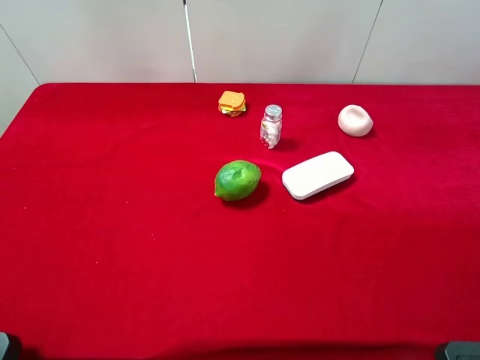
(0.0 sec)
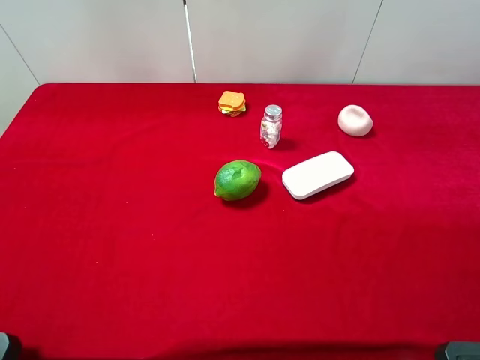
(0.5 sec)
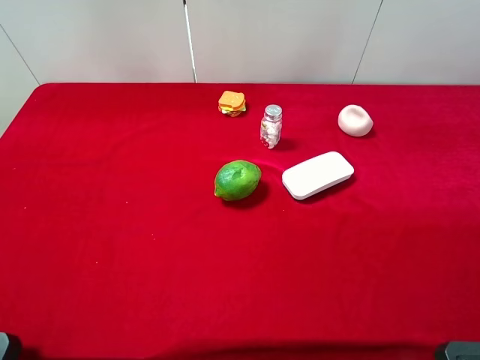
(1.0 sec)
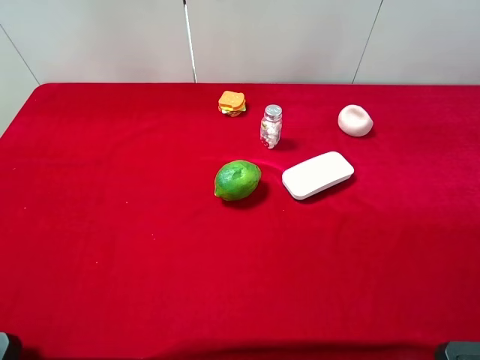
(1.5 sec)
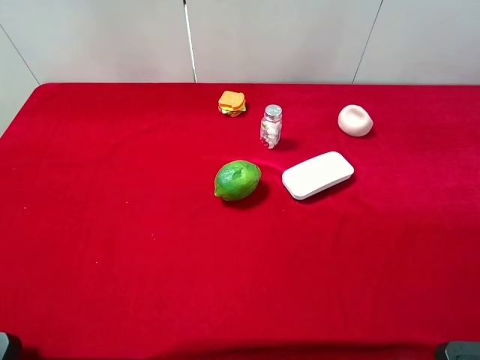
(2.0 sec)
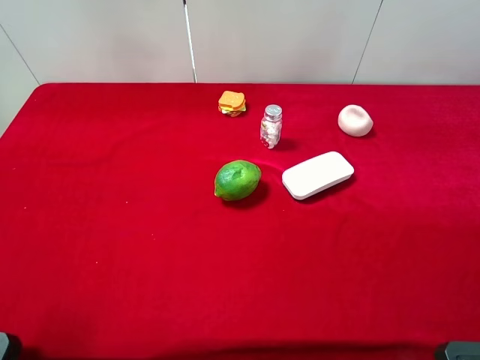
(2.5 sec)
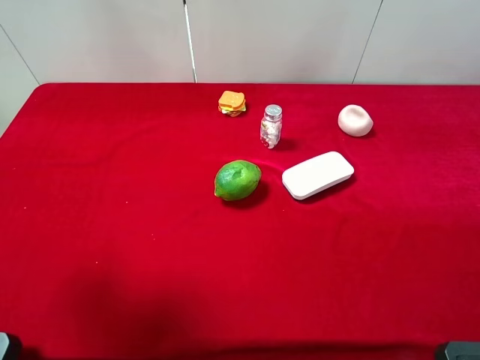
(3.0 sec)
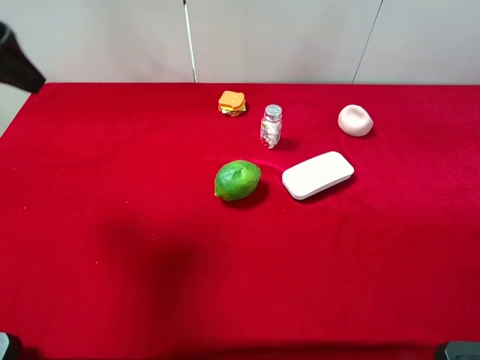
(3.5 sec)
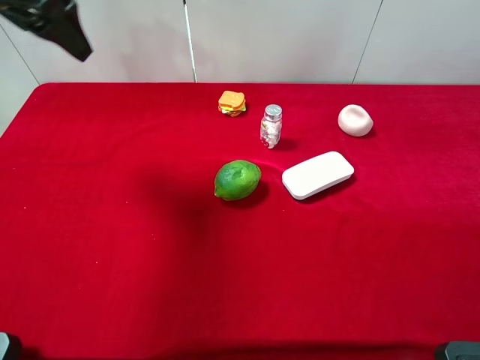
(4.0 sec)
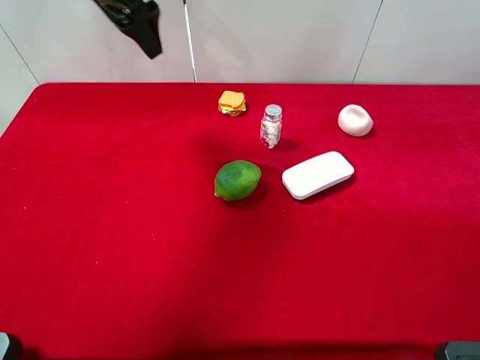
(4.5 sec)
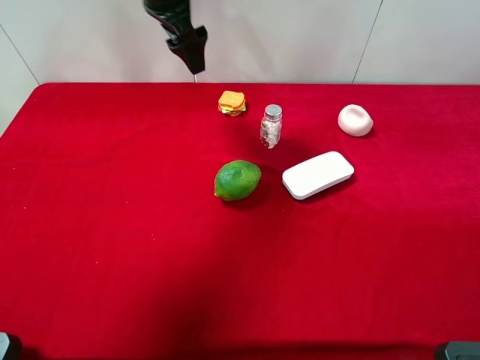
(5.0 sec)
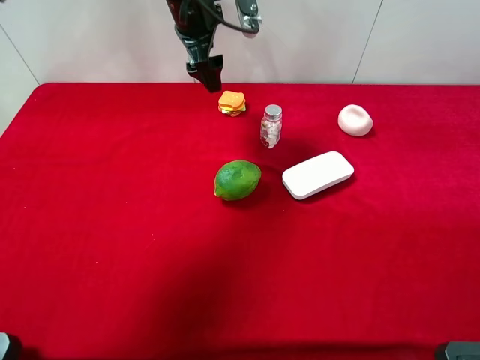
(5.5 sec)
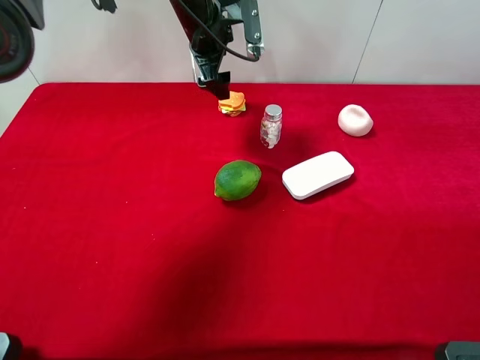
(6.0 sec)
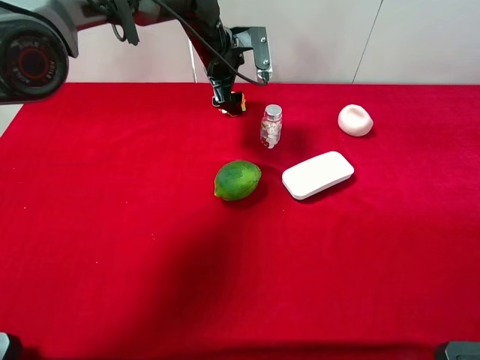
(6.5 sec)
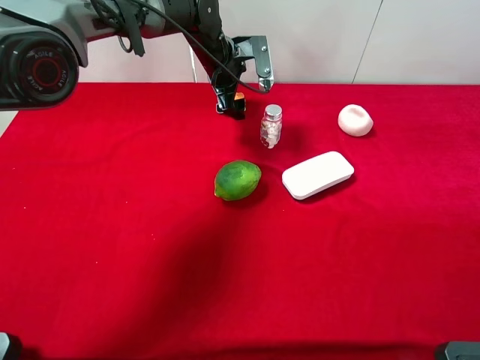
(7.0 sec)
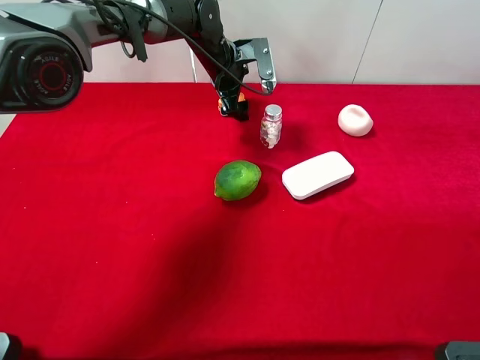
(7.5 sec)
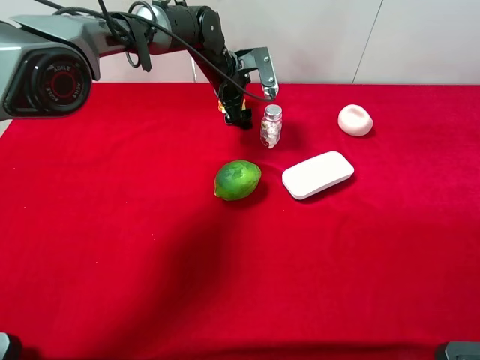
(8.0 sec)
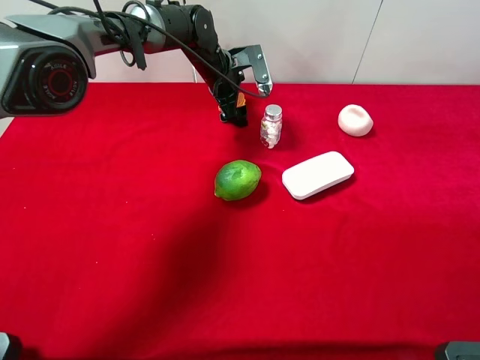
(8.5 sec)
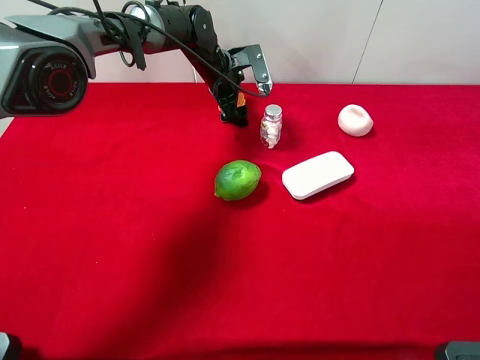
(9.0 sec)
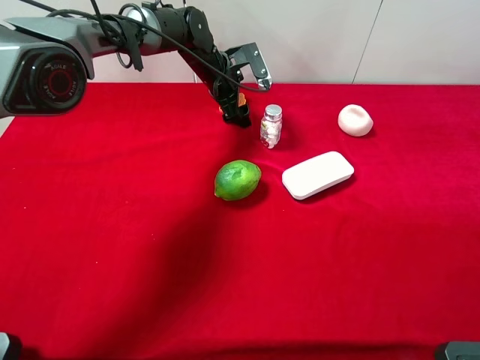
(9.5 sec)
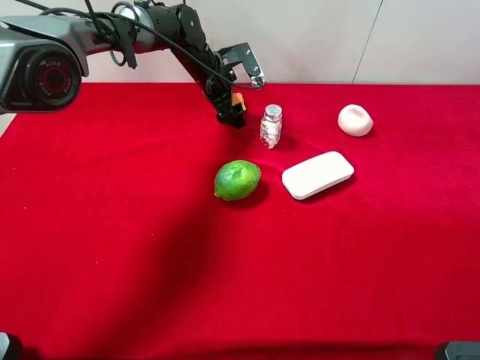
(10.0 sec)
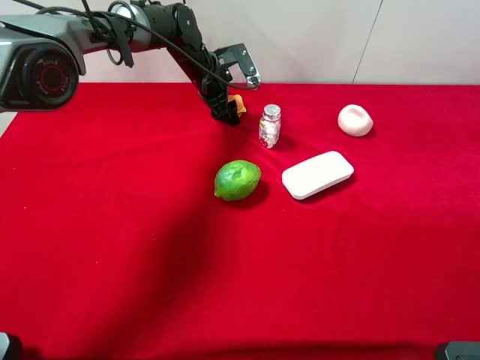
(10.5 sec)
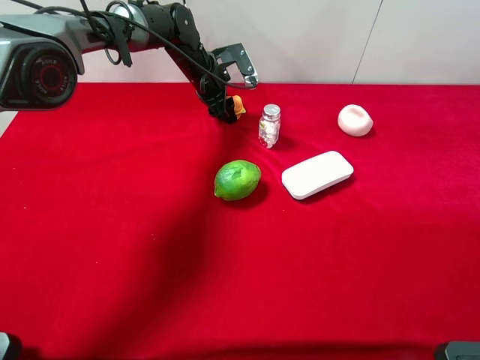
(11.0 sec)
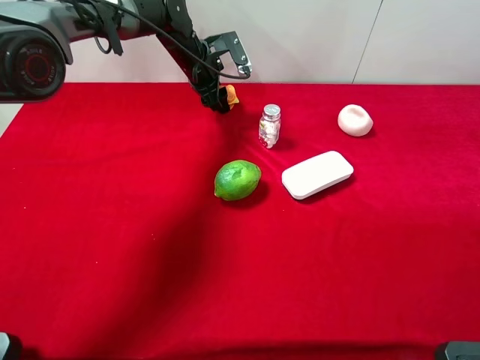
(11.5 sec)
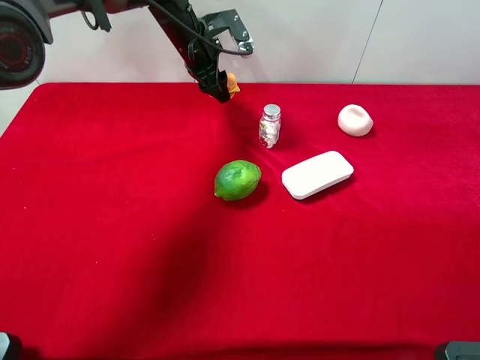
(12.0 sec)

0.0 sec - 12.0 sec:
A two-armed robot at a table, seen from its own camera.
Task of the whole recording: the gripper move the object.
Step, 0.0 sec - 11.0 sec: Grasp the sandwich with the left gripper.
0.0 sec - 2.0 sec: The two grippers keep their place.
2.0 sec - 4.0 sec: The left gripper goes approximately 35 cm forward.
4.0 sec - 6.0 sec: The left gripper is displaced to the right, downward and forward by roughly 25 cm.
6.0 sec - 8.0 sec: The left gripper moves downward, some 10 cm.
8.0 sec - 10.0 sec: The grippers make only small movements.
10.0 sec - 12.0 sec: The left gripper shifts roughly 5 cm upward, and closes up.

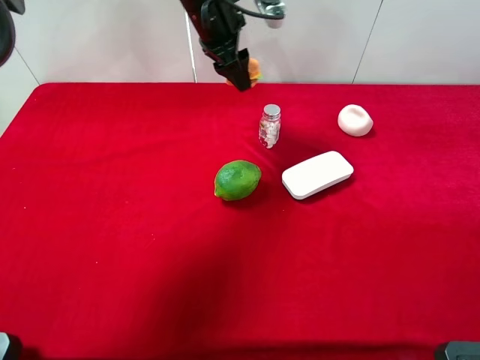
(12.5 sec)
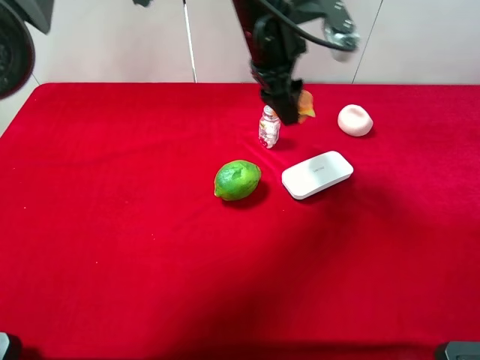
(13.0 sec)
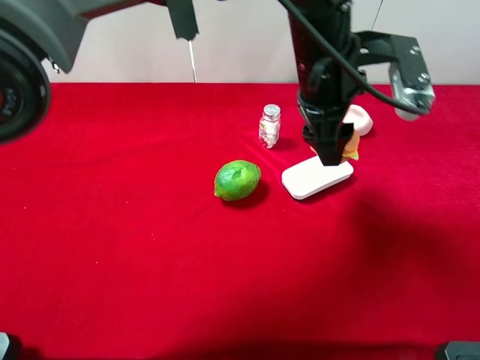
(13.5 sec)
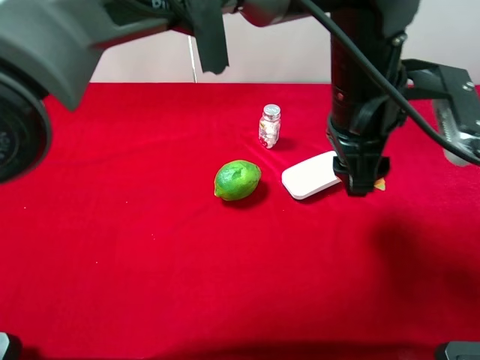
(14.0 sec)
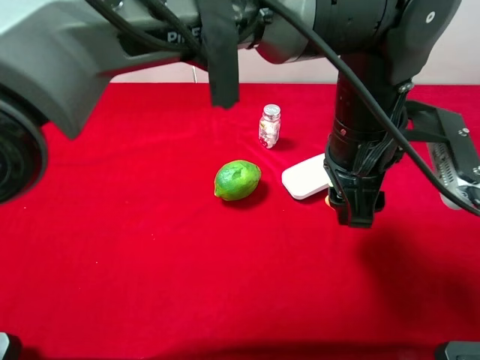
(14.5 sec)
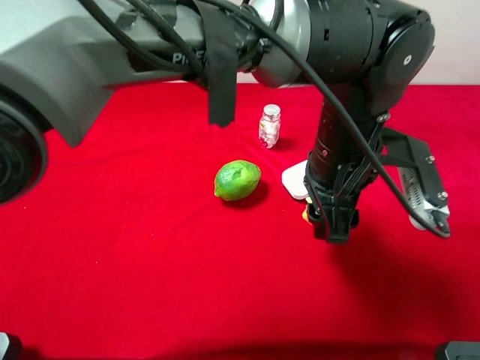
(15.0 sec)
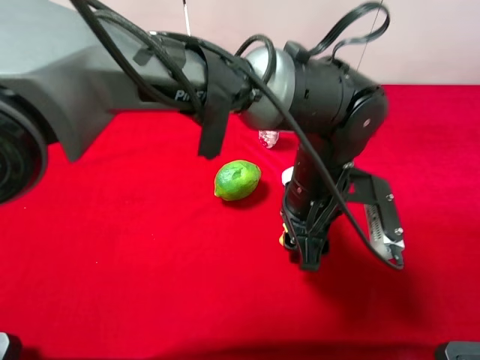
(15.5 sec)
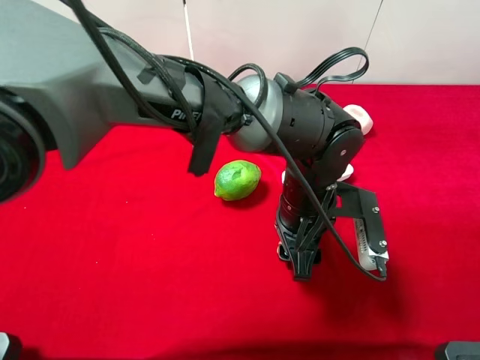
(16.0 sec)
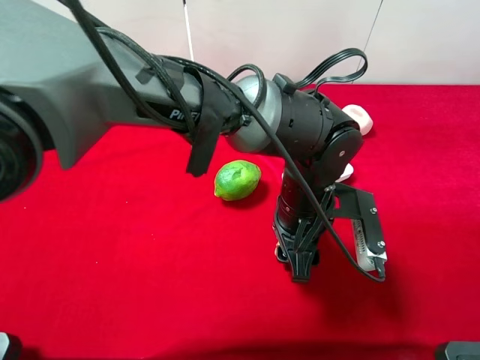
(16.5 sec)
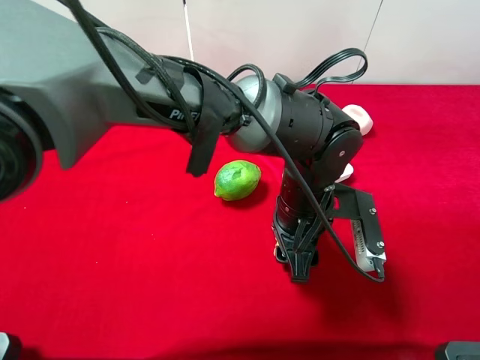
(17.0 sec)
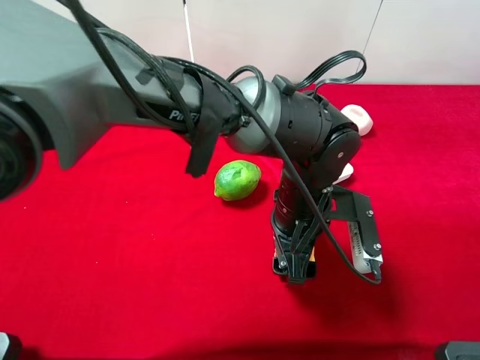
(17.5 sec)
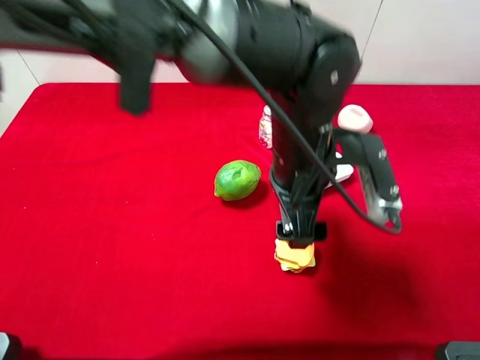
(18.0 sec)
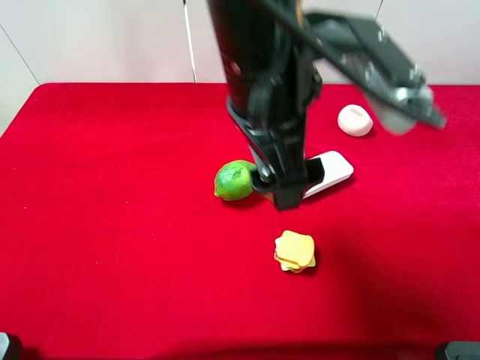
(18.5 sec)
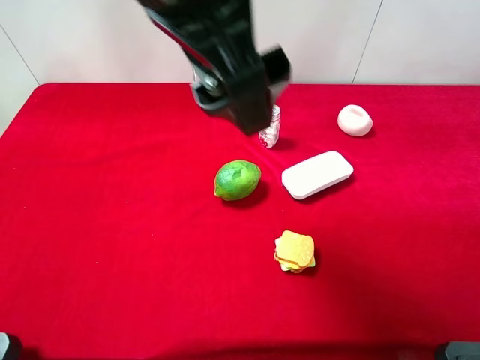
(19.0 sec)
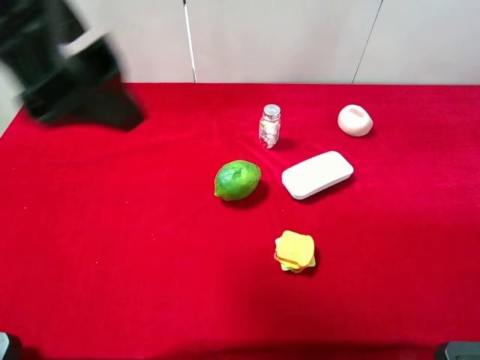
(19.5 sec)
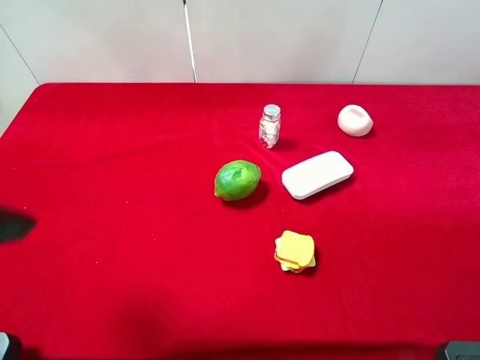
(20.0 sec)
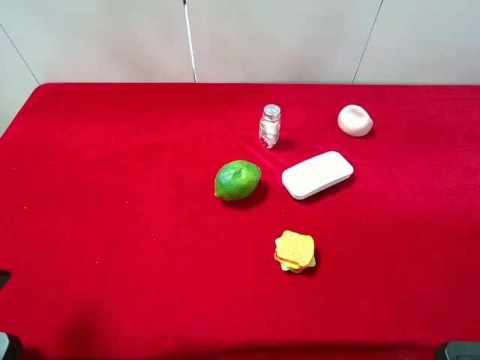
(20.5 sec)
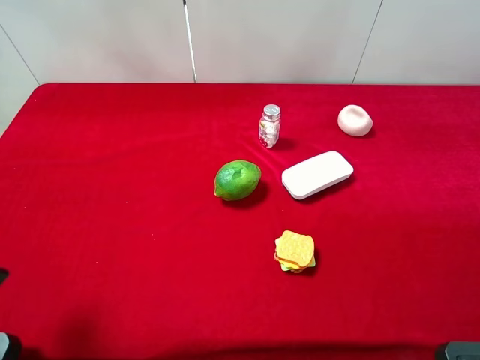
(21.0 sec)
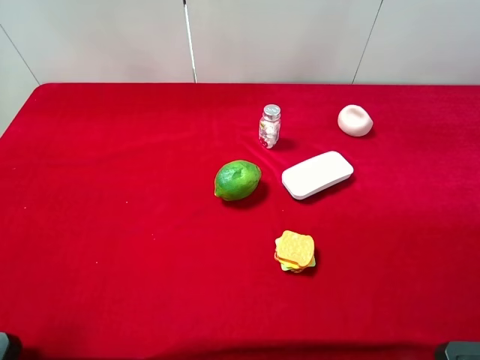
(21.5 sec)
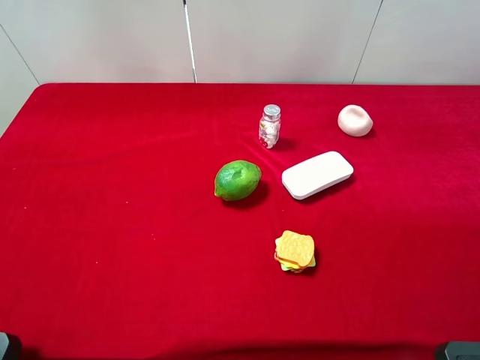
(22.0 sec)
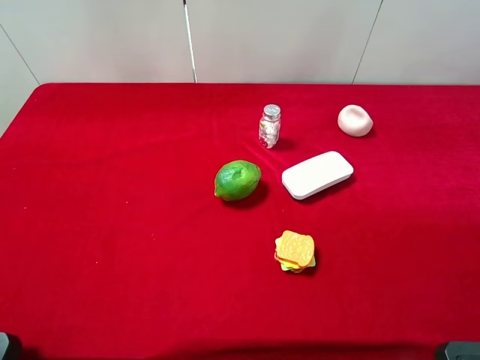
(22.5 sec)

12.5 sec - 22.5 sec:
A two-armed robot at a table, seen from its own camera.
Task of the whole recording: the gripper move the object.
Step, 12.5 sec - 18.0 sec: Place the sandwich on the table with the left gripper.
12.5 sec - 14.5 sec: The left gripper heads backward and to the right, covering some 30 cm.
14.5 sec - 16.5 sec: The left gripper moves downward, roughly 10 cm.
16.5 sec - 18.5 sec: The left gripper travels upward by some 20 cm, and opens up.
18.5 sec - 20.5 sec: The left gripper shifts some 30 cm to the left and backward.
